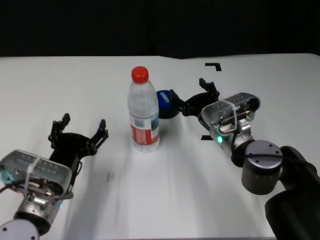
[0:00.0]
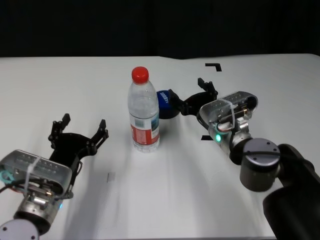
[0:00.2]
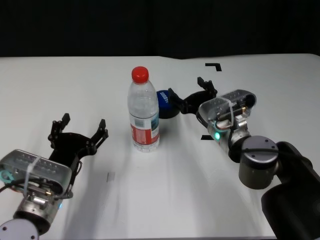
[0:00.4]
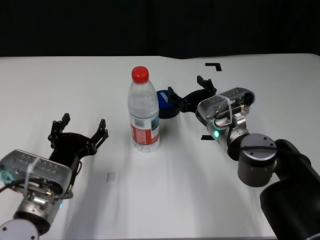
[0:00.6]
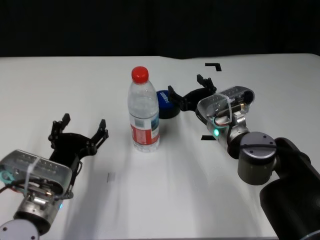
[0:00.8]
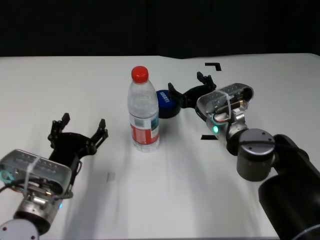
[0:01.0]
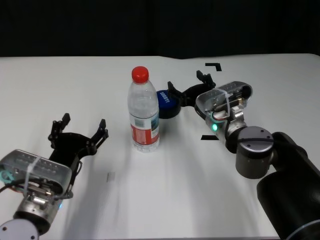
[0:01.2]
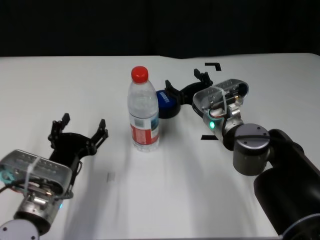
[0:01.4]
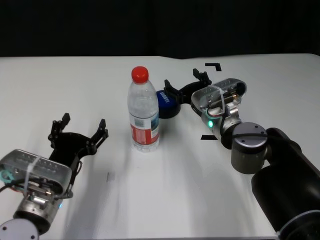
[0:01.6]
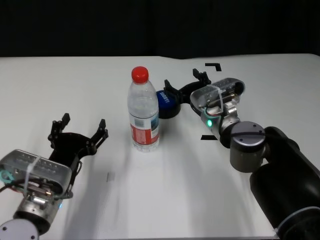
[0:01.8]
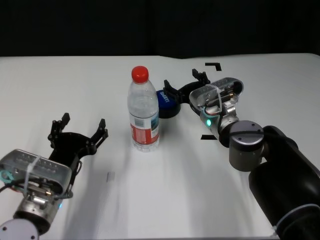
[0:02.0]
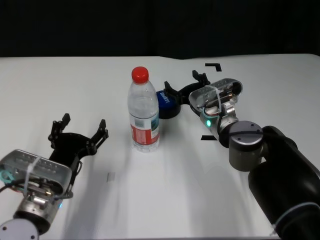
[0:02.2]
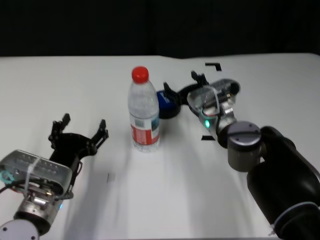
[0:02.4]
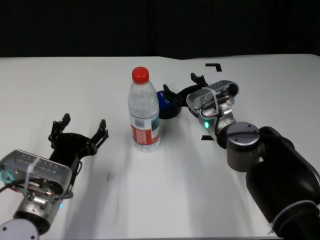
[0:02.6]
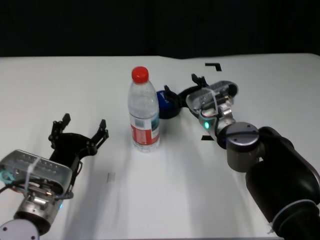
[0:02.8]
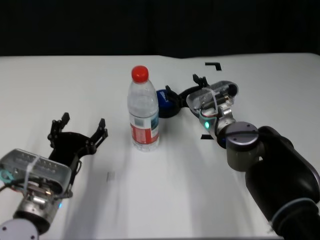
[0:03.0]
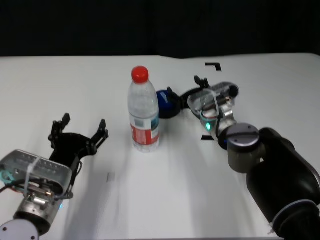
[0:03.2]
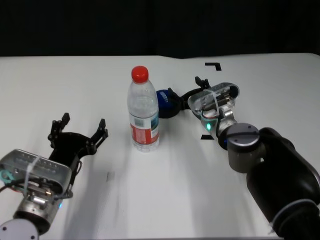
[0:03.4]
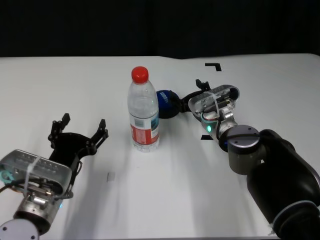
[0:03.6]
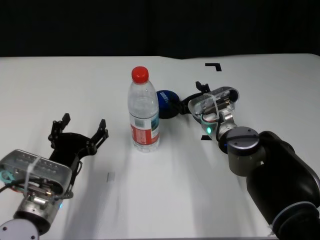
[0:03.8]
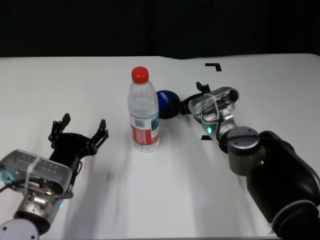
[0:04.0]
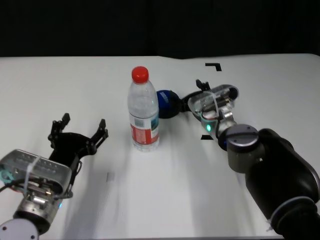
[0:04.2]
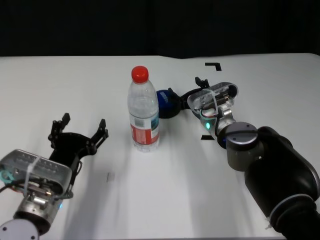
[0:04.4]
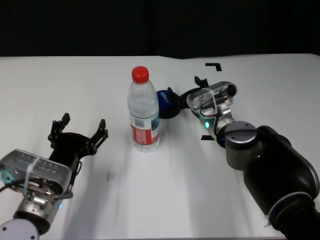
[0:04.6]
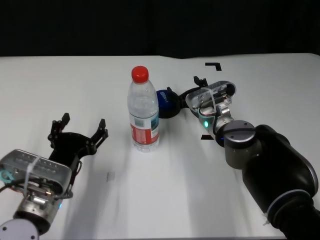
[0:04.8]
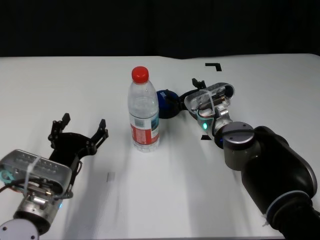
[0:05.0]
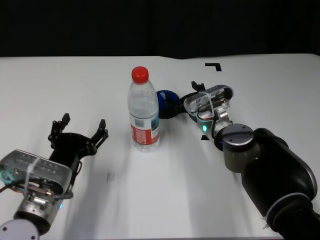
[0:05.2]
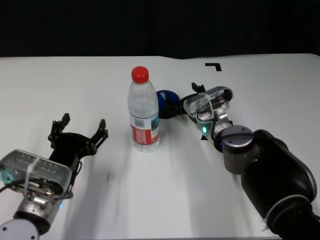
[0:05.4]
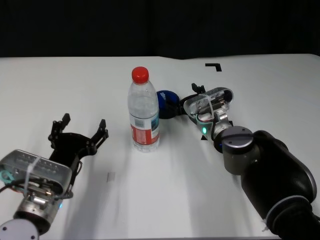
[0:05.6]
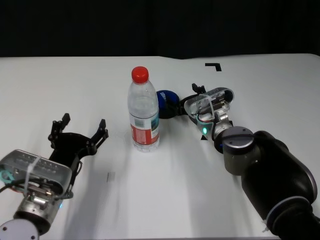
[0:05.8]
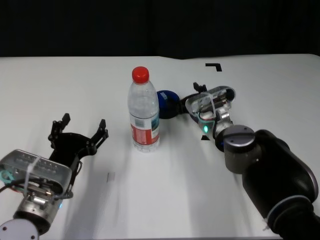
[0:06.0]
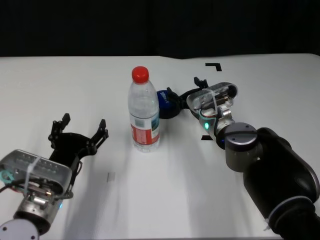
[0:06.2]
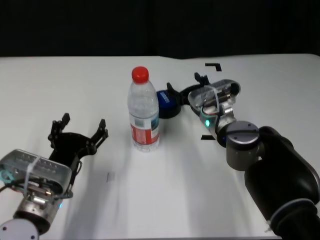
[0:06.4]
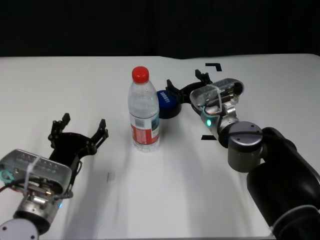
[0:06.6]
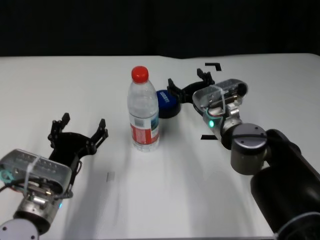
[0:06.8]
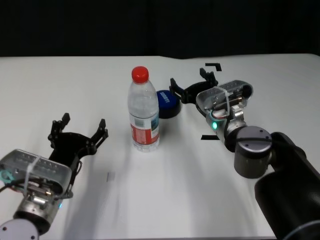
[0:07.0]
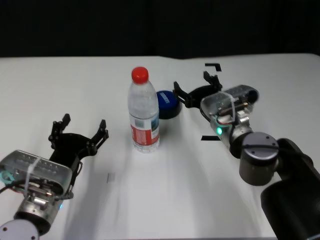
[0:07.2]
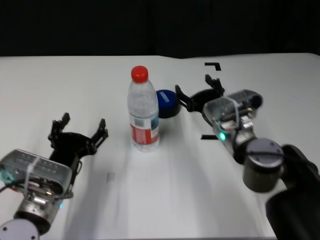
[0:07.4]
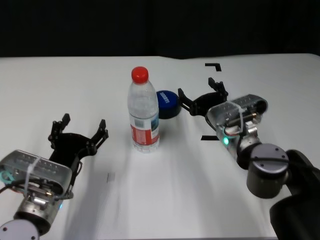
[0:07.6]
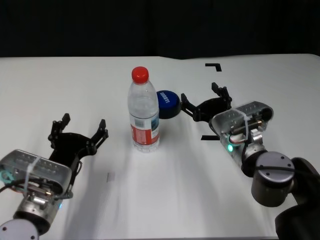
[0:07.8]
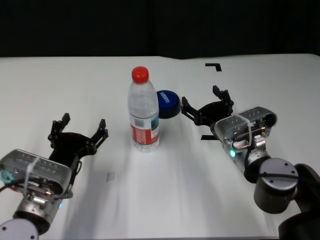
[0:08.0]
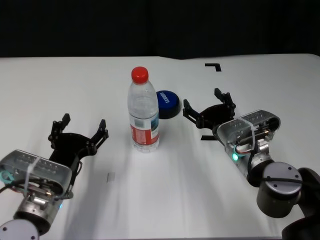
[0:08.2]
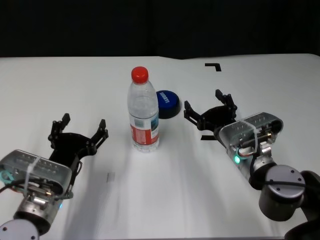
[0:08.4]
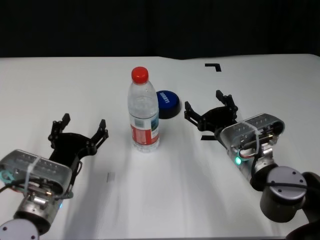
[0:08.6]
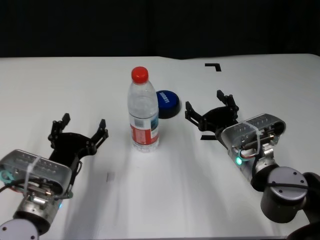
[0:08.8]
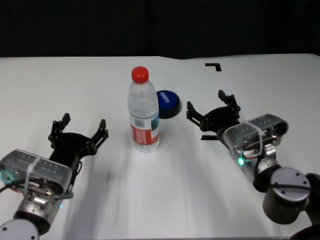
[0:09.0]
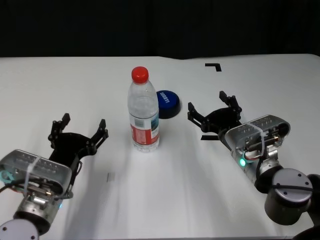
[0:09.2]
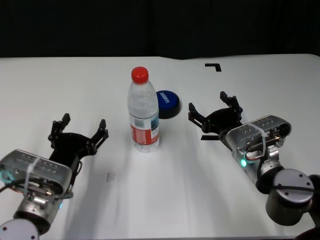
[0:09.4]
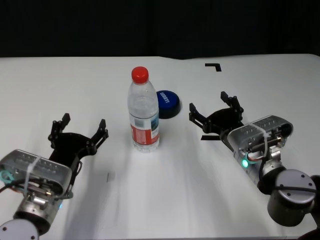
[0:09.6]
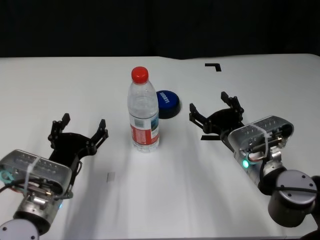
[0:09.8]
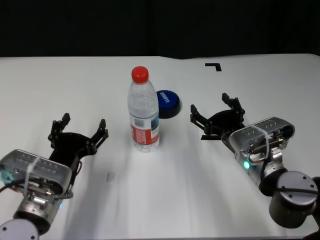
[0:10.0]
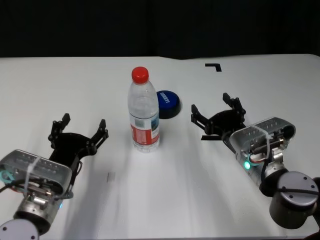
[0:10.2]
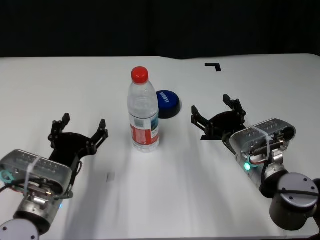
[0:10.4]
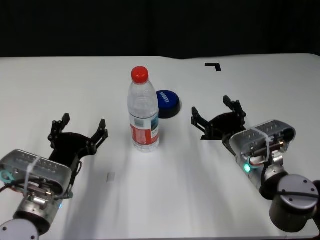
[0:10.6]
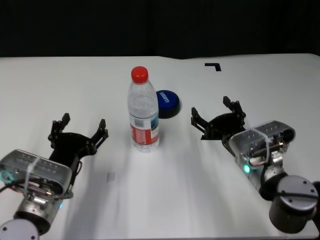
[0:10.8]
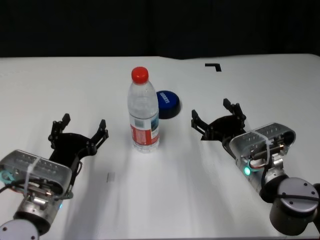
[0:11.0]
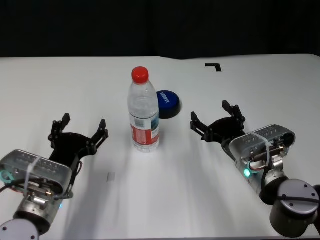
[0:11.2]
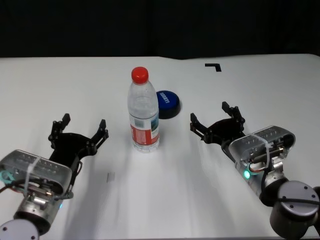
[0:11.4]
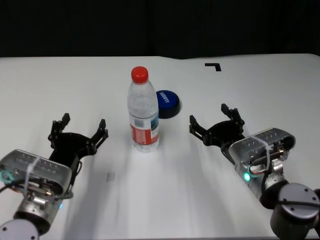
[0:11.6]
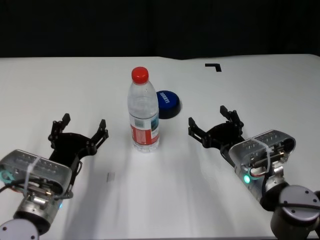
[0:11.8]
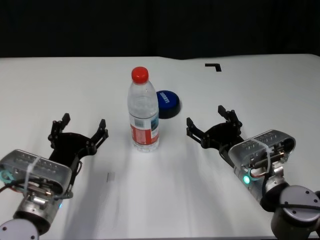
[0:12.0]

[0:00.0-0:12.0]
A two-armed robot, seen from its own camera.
Task of the whole recording: after avoiding the water bottle on the table, press the button.
Step, 0:00.0 to 0:06.4: Press the button blocked by the bottle with right gripper.

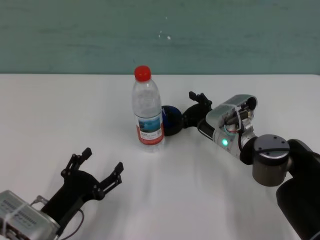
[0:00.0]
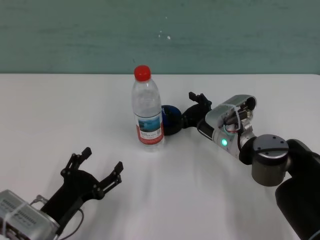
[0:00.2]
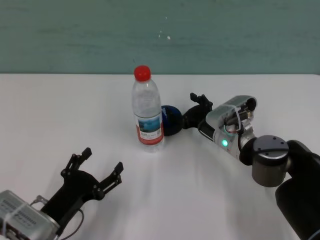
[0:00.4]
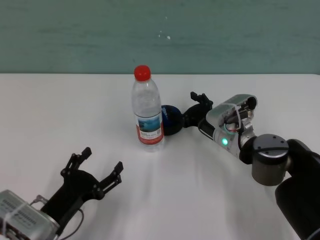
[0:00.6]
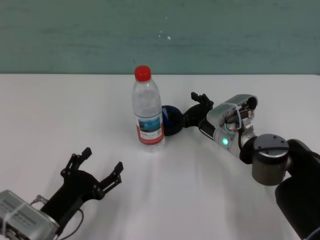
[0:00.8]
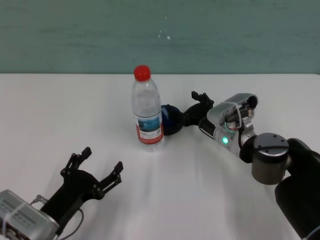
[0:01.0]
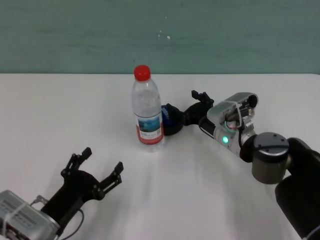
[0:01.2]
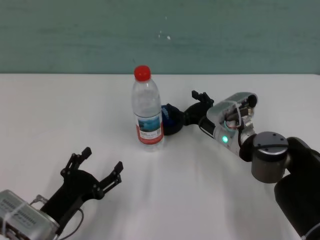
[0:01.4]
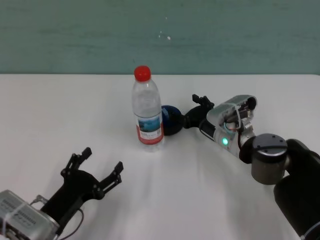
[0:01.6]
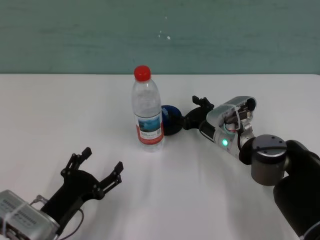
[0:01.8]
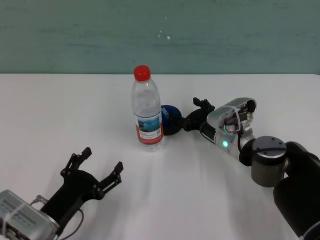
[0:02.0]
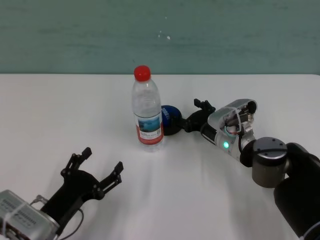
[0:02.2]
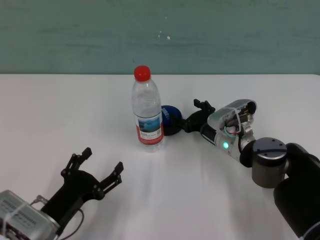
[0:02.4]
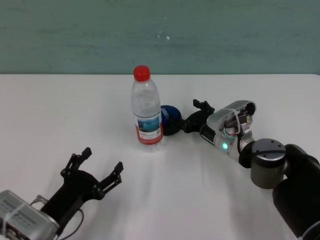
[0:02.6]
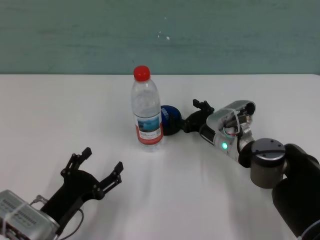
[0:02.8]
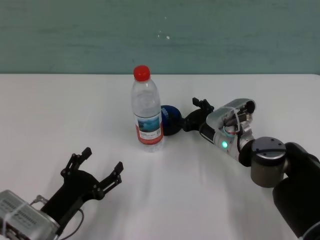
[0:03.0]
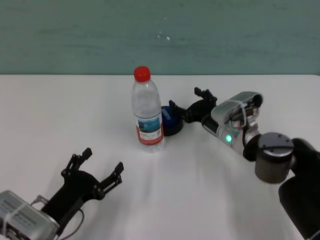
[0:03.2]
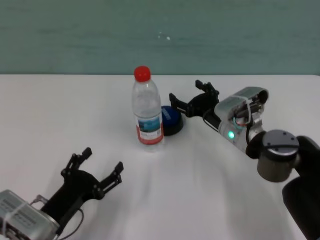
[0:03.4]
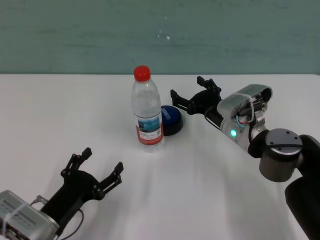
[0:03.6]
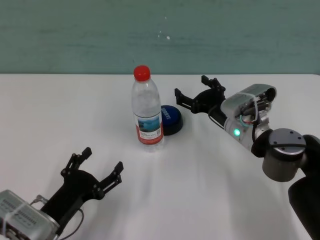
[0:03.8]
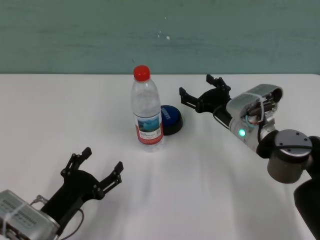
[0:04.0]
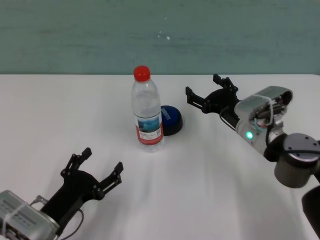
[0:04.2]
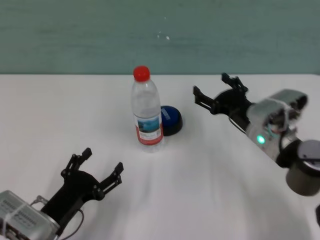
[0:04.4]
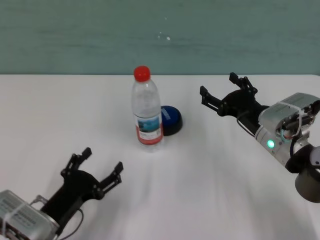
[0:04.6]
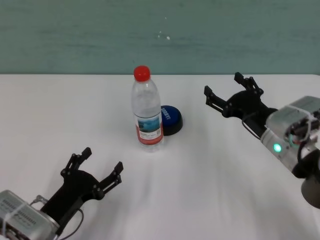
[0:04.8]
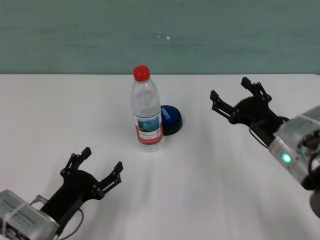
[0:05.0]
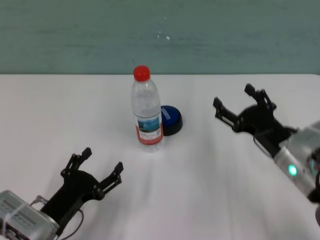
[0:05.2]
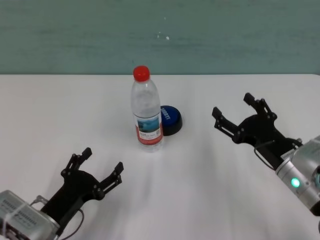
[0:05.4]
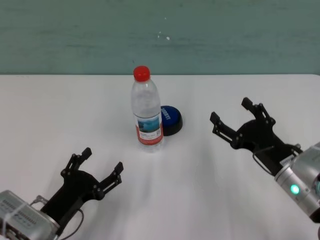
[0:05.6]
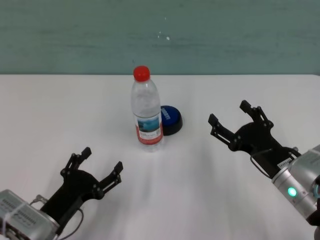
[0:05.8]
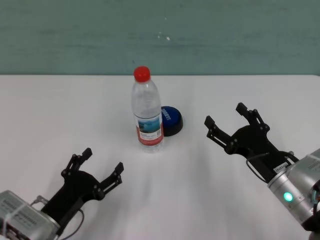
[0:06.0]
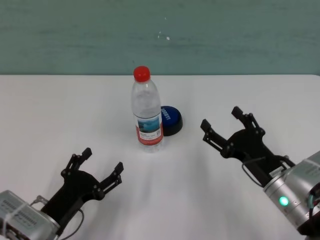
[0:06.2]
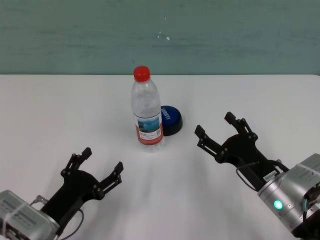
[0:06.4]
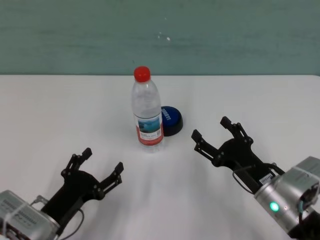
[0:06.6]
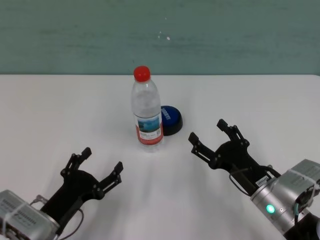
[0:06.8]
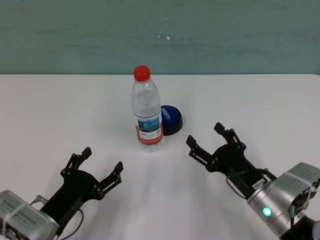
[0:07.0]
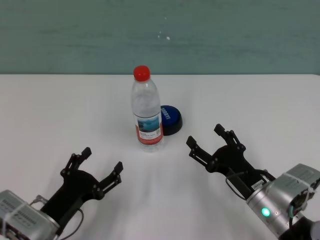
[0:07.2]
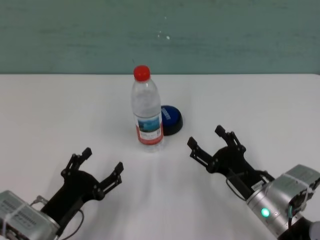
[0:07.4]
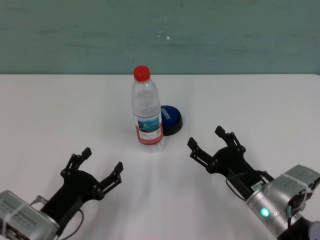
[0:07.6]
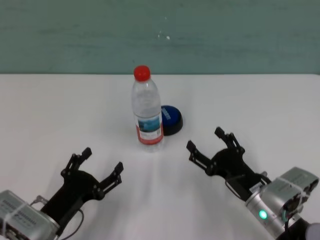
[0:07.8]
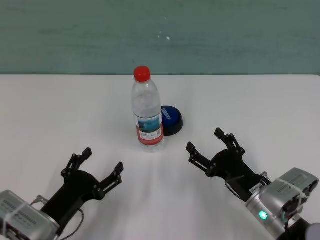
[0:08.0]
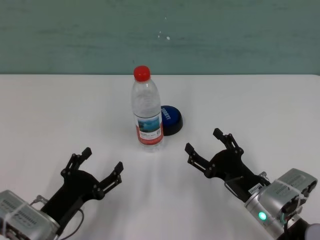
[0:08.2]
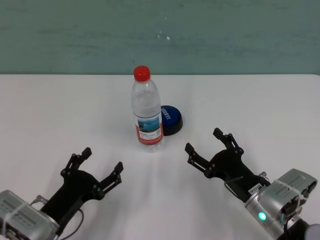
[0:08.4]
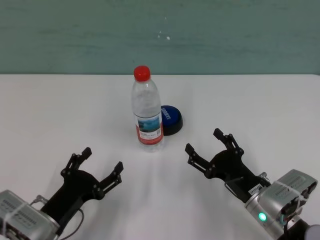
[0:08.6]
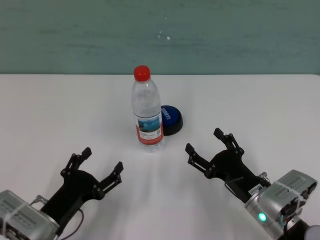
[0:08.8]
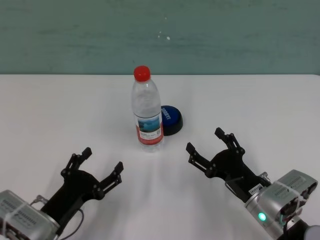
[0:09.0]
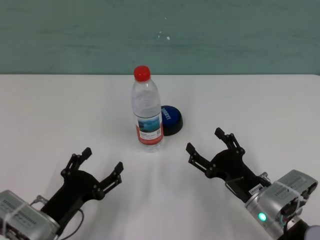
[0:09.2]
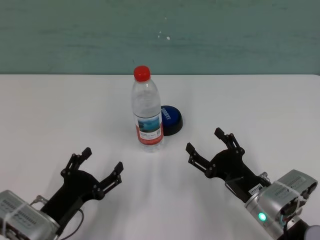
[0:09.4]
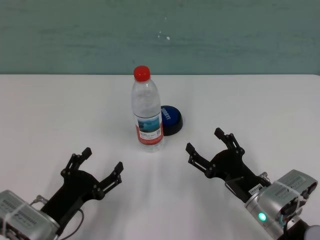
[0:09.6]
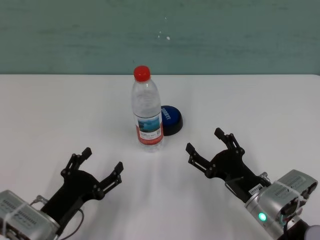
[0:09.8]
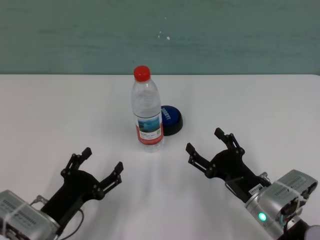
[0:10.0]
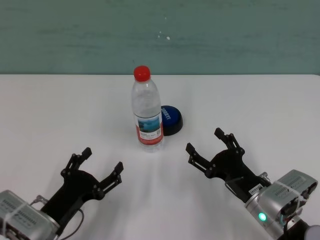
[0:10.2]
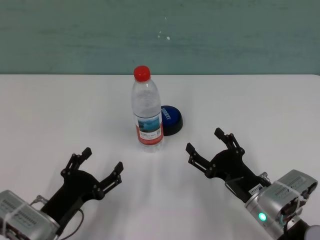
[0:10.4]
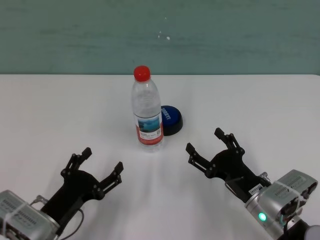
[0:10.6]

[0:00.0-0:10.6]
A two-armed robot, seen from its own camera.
Task of the whole recording: after avoiding the water bottle on the table, press the button.
Step, 0:00.0 to 0:03.0: Press the button blocked by the bottle with right gripper.
